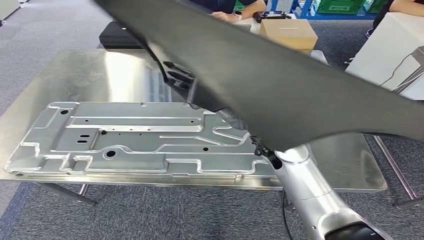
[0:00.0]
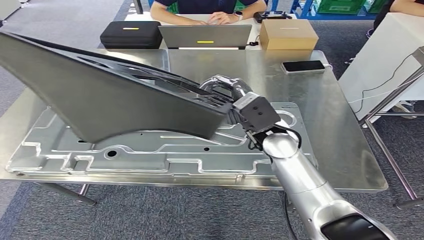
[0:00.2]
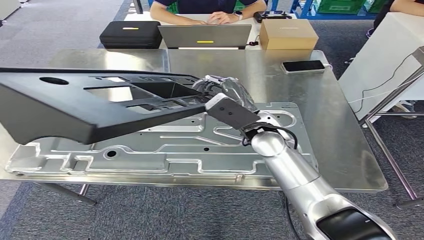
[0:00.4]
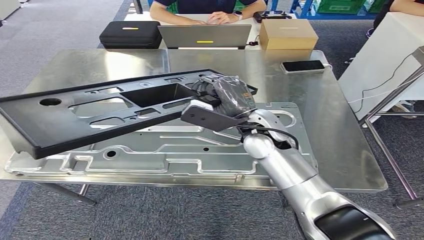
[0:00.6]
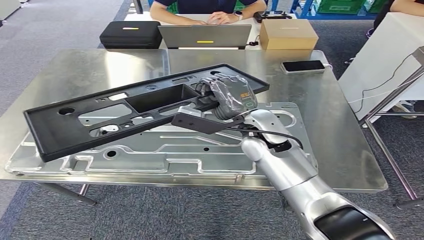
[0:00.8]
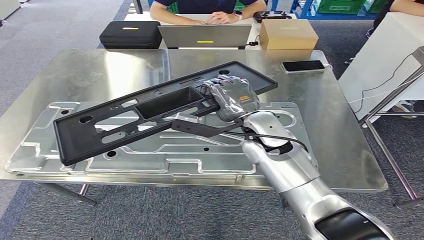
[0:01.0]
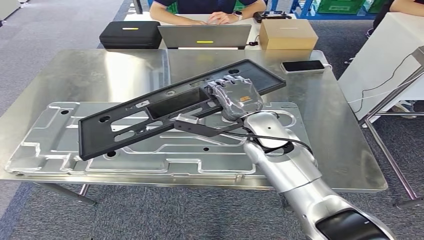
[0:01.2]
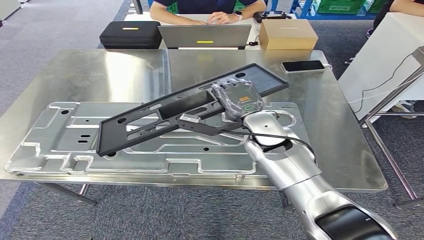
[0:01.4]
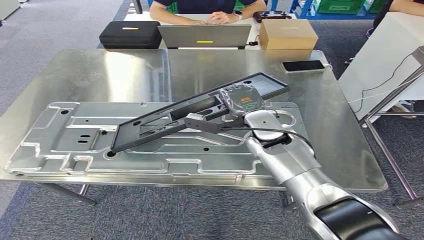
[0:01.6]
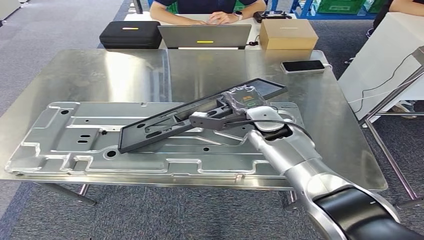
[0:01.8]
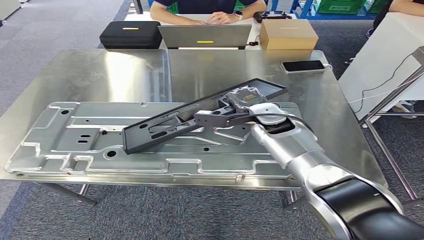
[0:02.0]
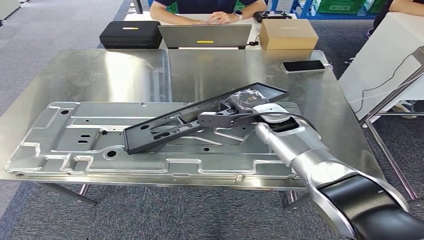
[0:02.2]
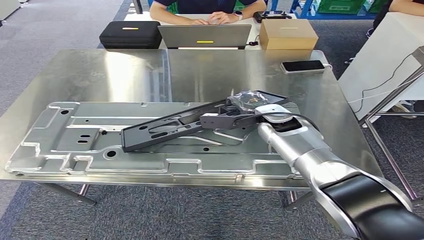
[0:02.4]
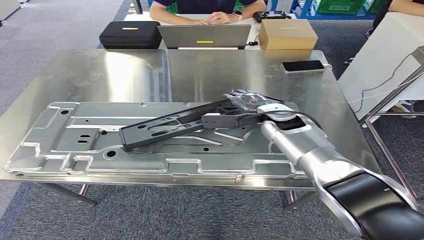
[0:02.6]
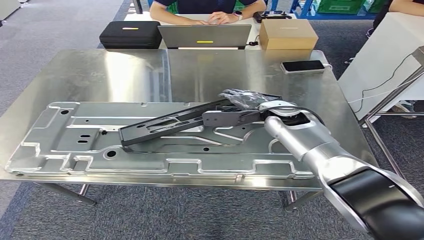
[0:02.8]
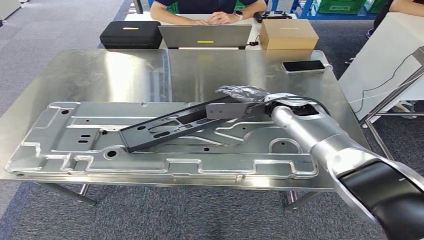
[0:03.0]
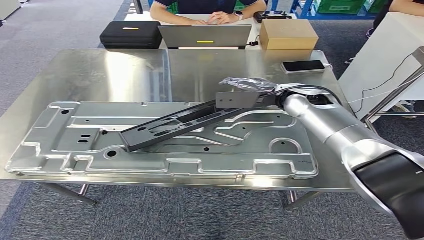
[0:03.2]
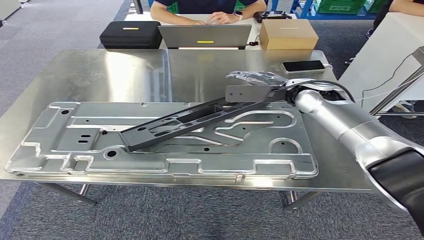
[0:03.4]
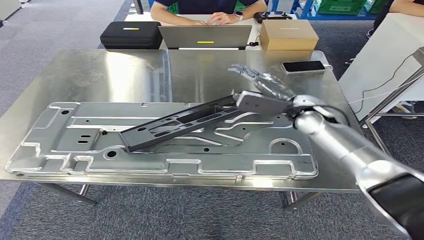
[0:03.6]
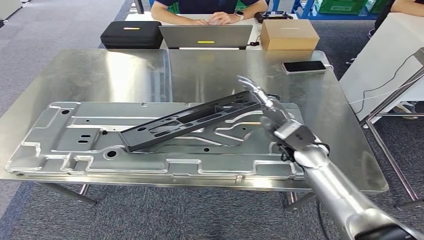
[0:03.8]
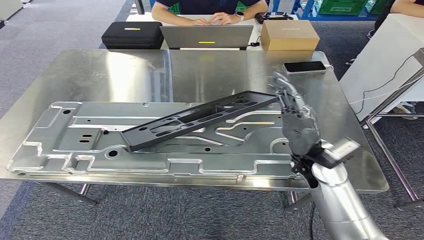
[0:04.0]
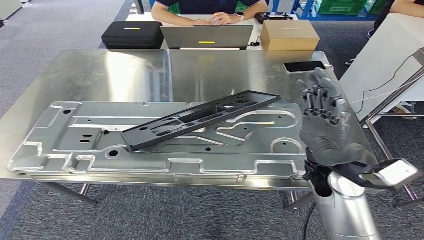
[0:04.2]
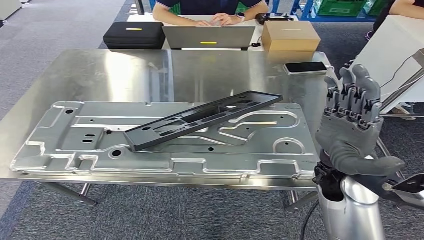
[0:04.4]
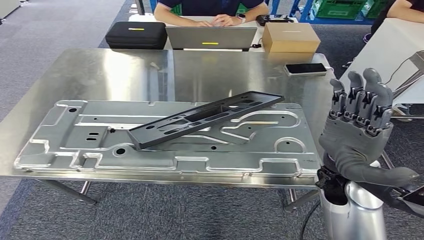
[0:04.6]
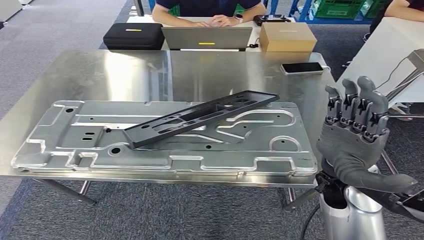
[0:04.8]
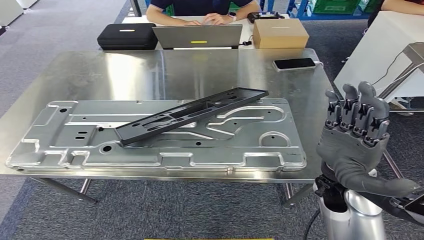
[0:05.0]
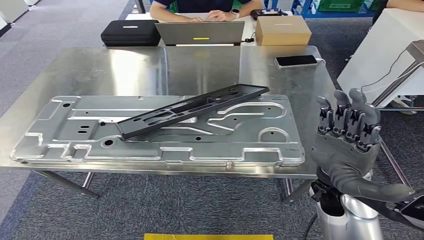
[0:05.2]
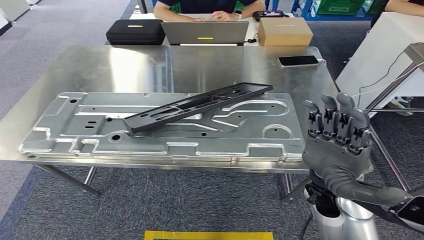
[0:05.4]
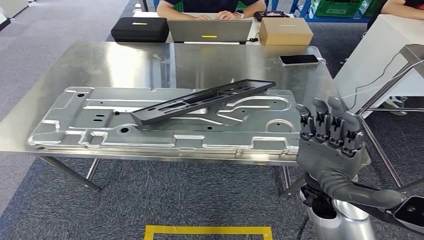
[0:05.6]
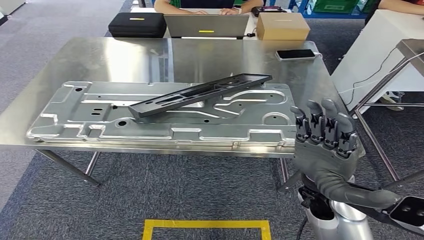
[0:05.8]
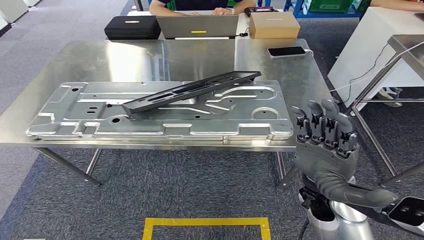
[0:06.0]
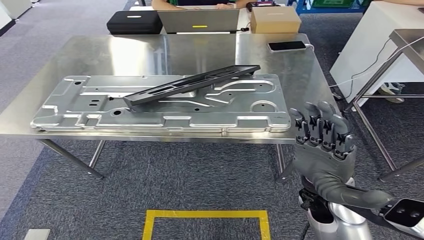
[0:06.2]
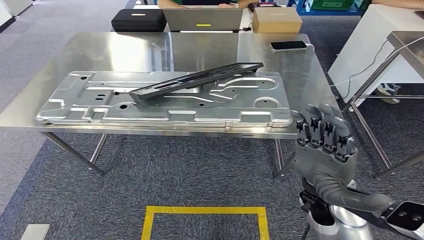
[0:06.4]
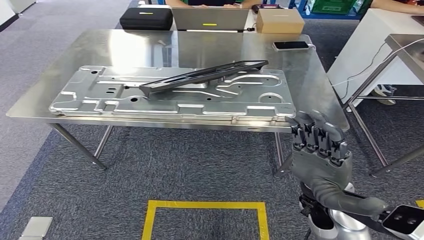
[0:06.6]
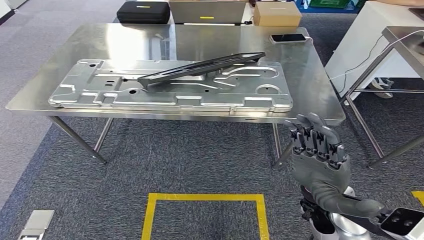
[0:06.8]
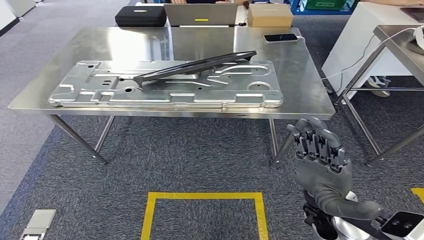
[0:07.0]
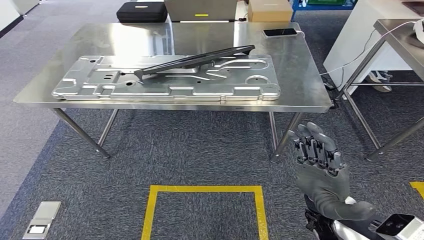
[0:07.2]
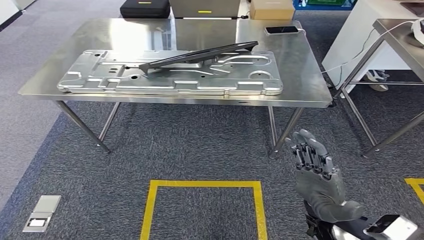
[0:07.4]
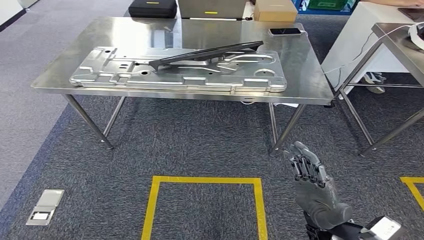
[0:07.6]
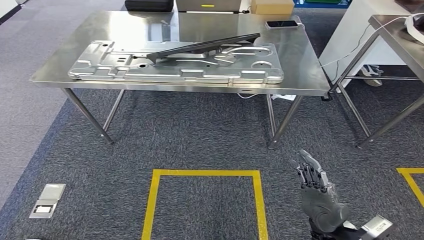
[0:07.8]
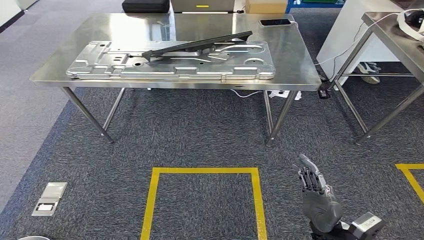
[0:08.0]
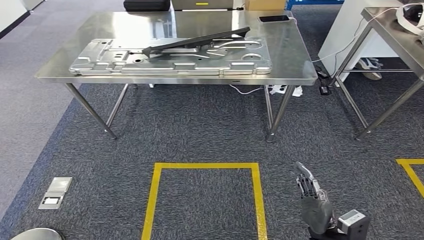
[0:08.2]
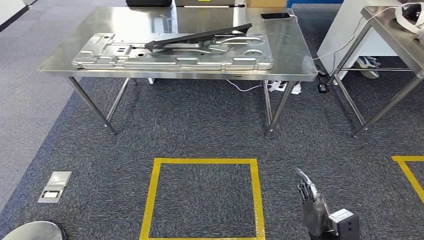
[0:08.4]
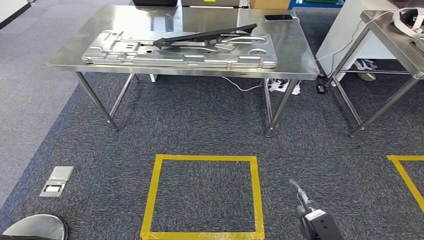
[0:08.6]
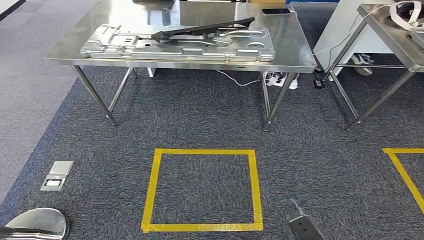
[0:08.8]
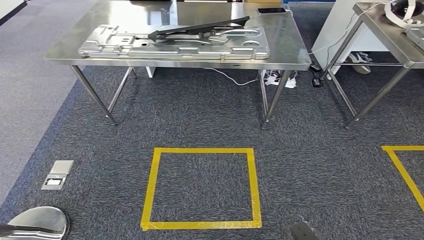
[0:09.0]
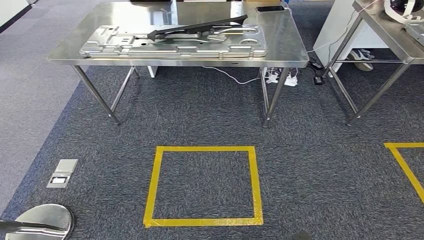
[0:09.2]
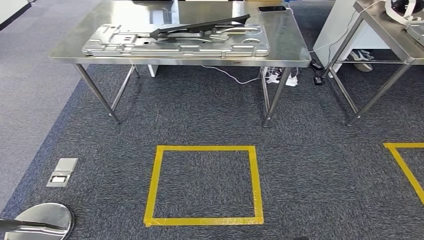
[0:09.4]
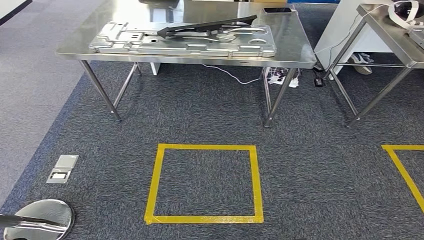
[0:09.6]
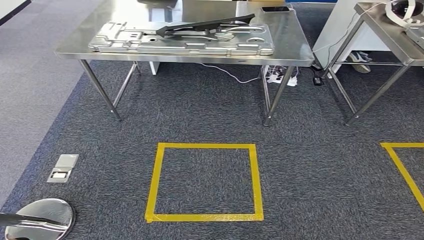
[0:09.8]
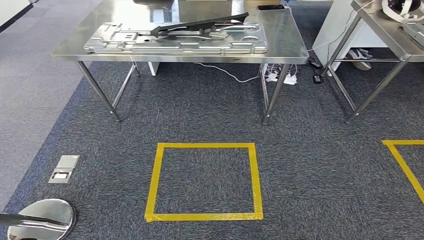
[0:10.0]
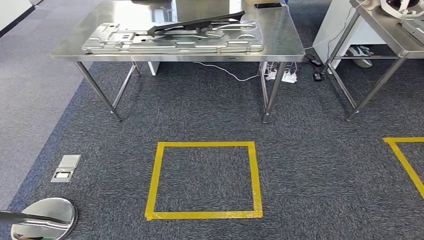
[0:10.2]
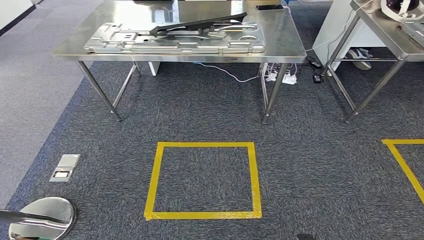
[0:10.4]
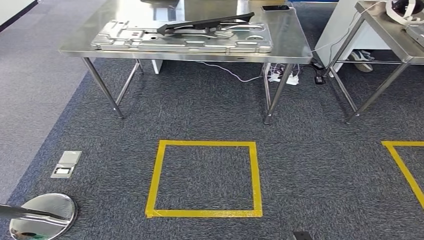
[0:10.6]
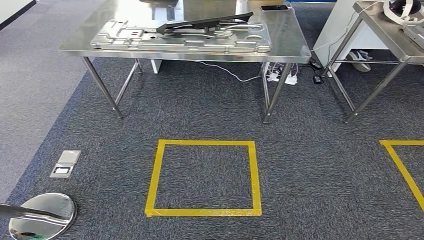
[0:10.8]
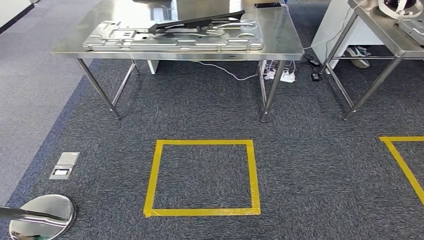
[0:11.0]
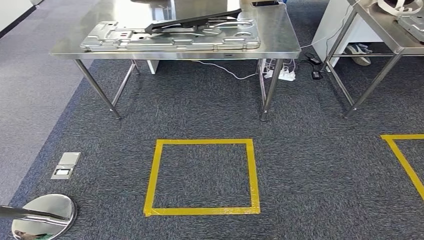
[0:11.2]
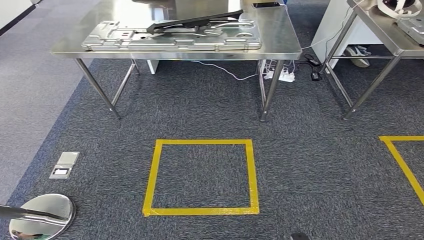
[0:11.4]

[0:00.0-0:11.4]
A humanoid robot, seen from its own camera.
Step, 0:00.2 to 0:04.6: Insert the small parts into the corresponding slots on the workbench.
Step, 0:04.8 to 0:11.4: Return to the initial position at the workbench.
0:01.4 to 0:02.8: The right hand moves forward and to the right, about 10 cm.
0:10.0 to 0:11.4: The left hand swings forward and backward, some 5 cm each way, with 2 reversals.
